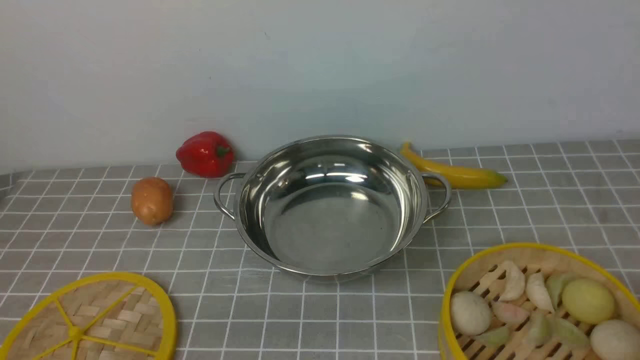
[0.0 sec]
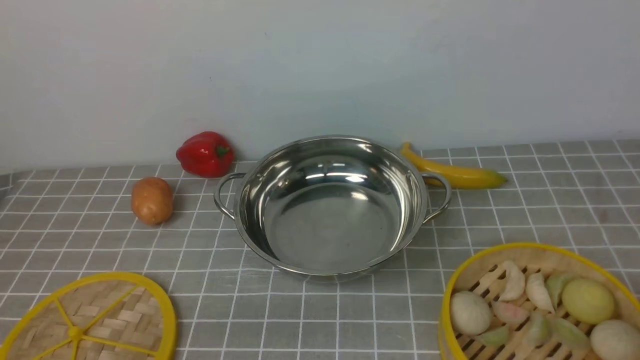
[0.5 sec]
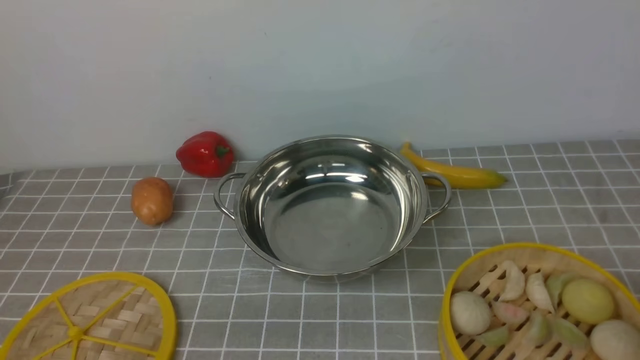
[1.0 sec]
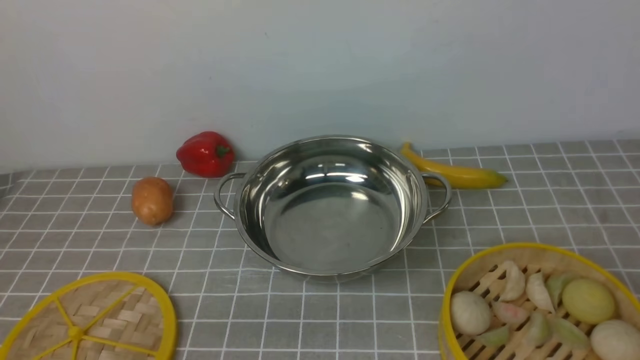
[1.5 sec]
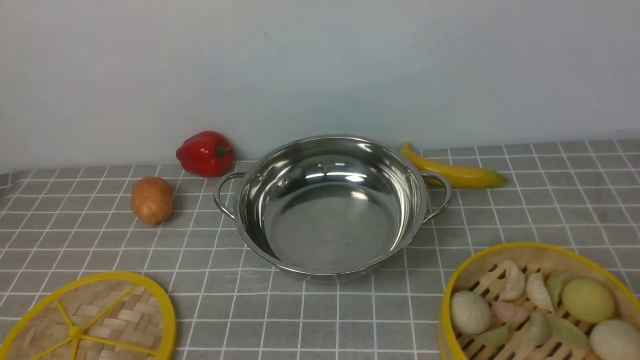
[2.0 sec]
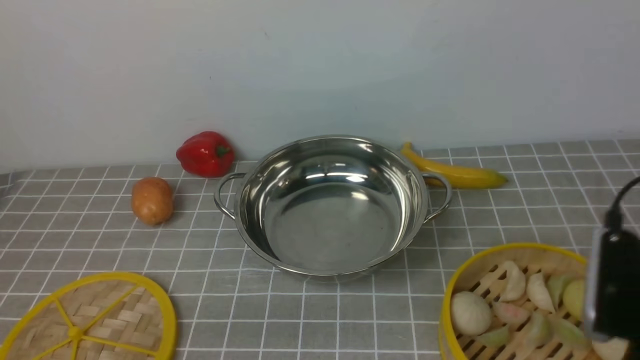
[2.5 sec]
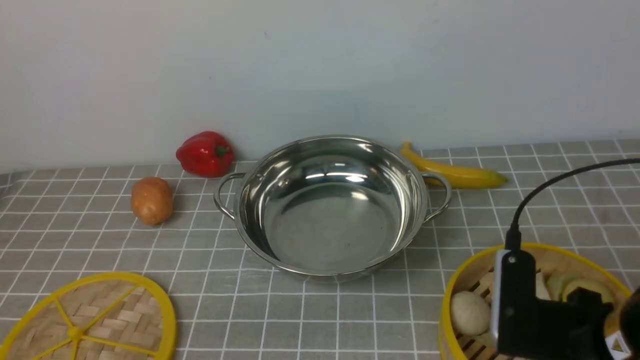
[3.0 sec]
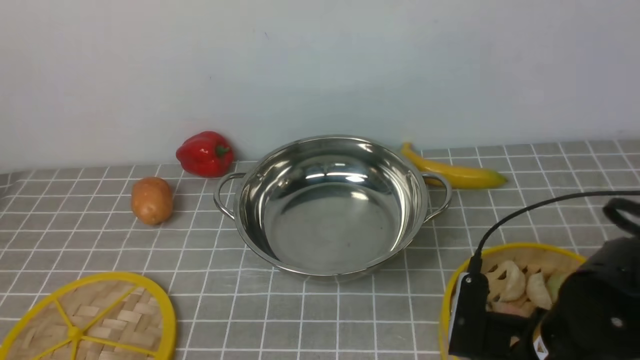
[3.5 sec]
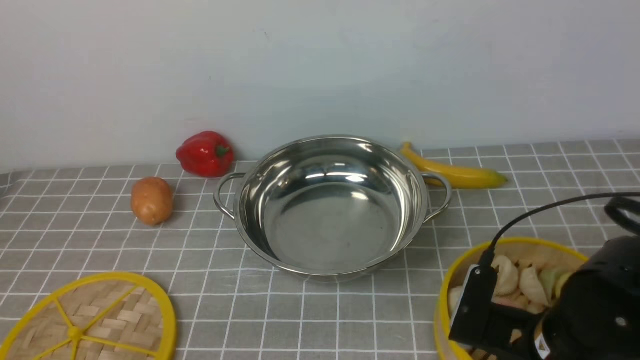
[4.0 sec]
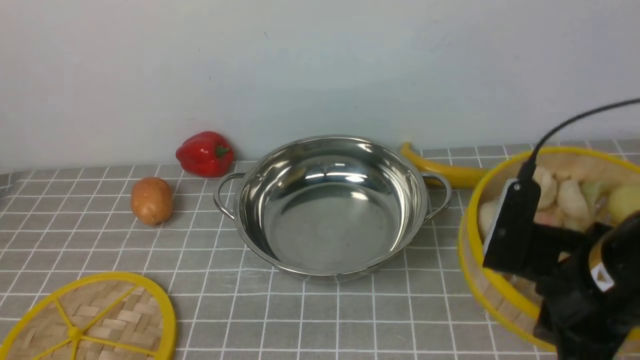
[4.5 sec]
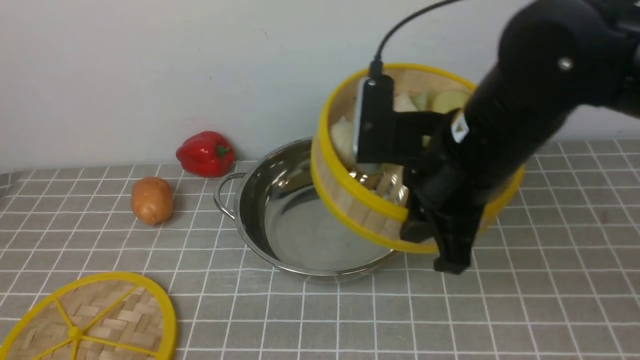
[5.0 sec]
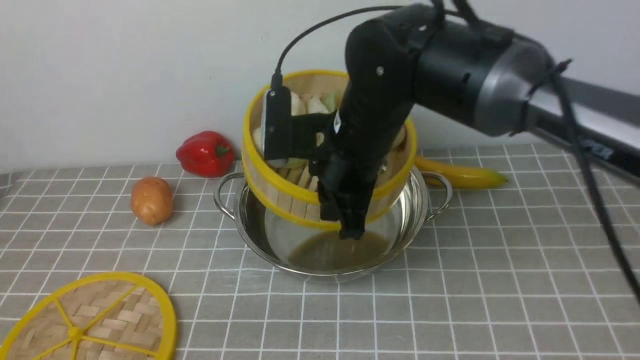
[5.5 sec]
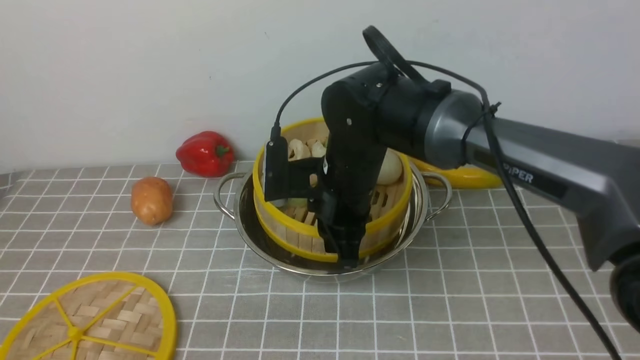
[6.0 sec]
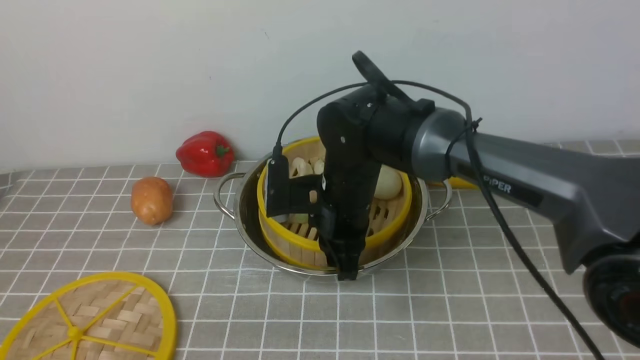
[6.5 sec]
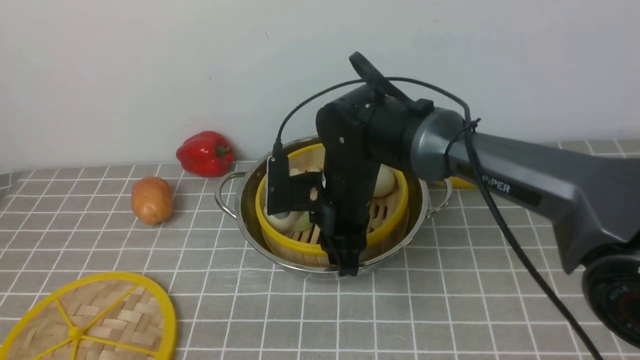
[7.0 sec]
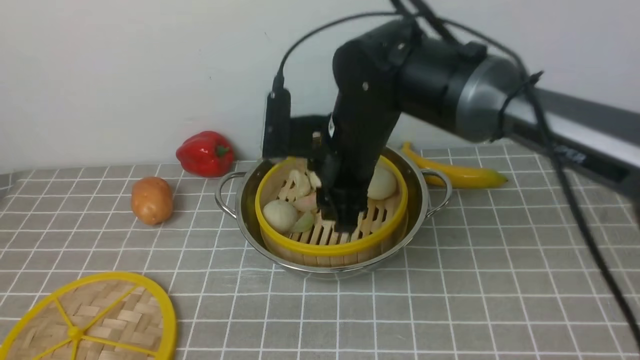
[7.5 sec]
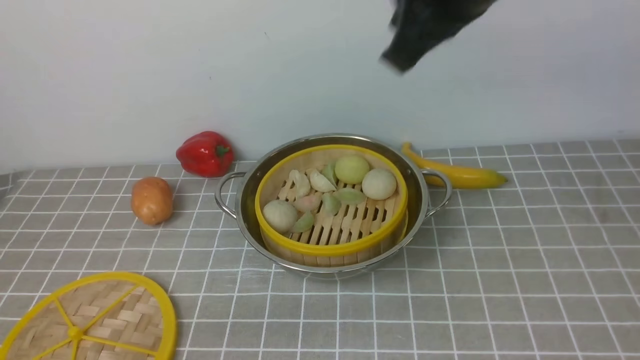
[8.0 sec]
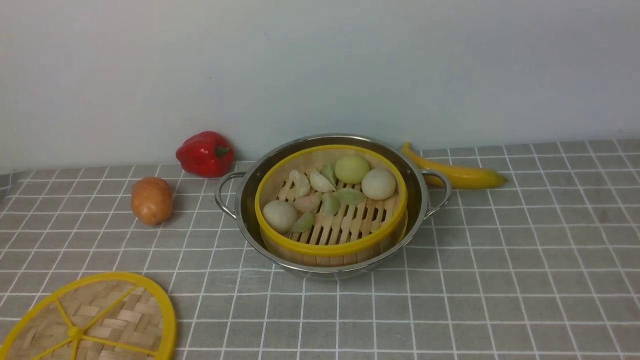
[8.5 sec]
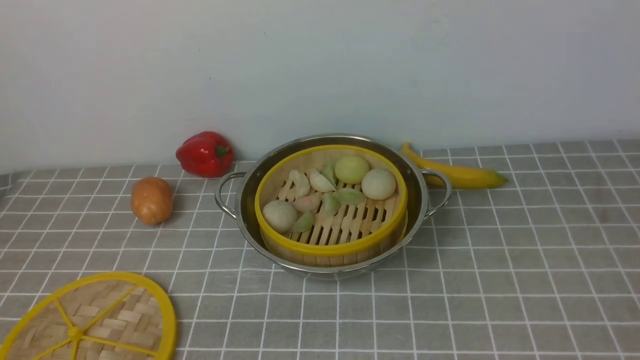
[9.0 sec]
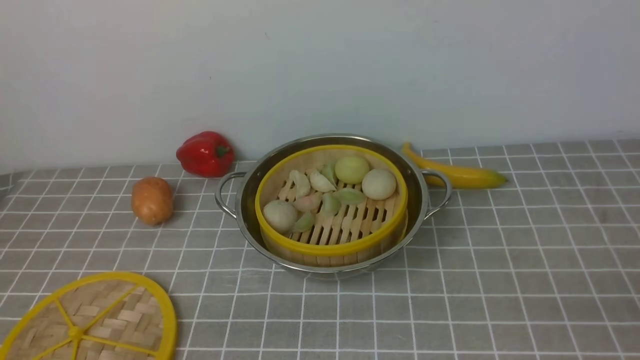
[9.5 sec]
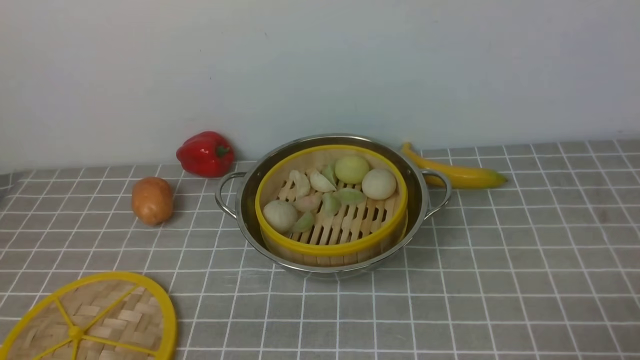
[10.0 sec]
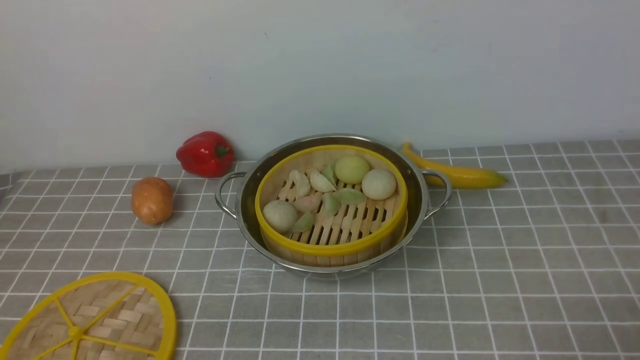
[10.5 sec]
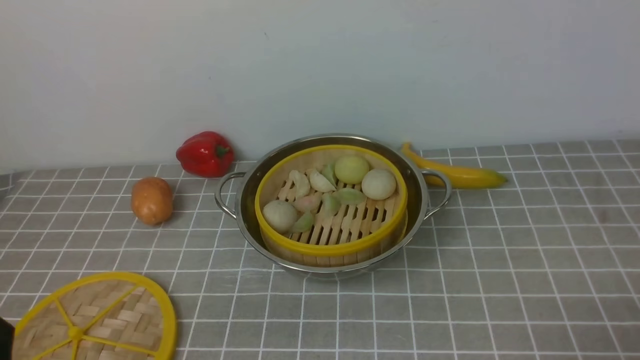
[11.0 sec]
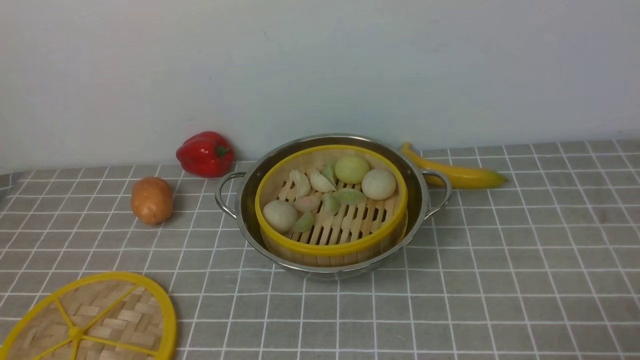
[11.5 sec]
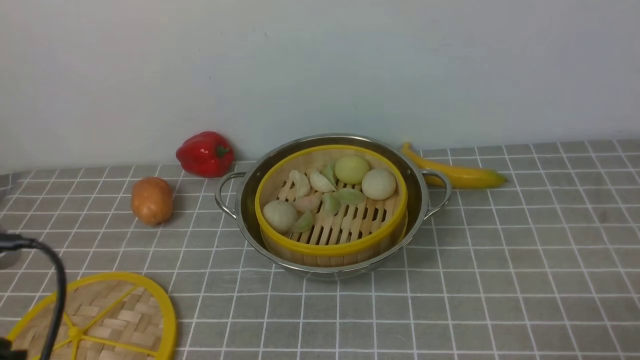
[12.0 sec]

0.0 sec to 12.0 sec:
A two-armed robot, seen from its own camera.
Task of the whole recording: place the steamer in the pot on the grey tablecloth, and put the lid on the steamer.
Step, 0.0 sec to 4.0 sec: use the right arm to lift the steamer closest to it.
Step, 4.5 sec to 7.0 sec: use the right arm to put the steamer into the iron steamer pot in the middle.
2.0 sec to 4.0 sec: The right gripper goes roughly 20 cm downward, forward and to the left, and closes.
4.0 sec to 6.0 sec: The right gripper shifts about 25 cm forward and to the left.
6.0 sec to 8.0 sec: The right gripper heads upward and to the right, covering roughly 25 cm, and opens, then closes once more.
8.0 sec to 10.0 sec: The right gripper moves downward, backward and to the right, approximately 40 cm, and opens its fingers.
10.0 sec to 12.0 sec: The left gripper shifts roughly 15 cm upward and forward.

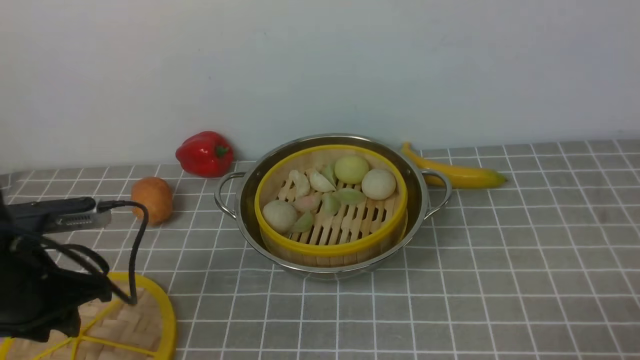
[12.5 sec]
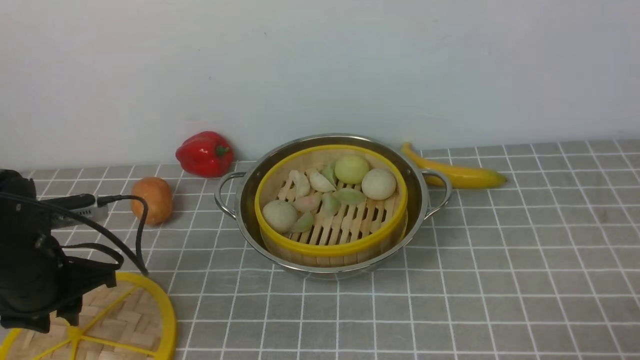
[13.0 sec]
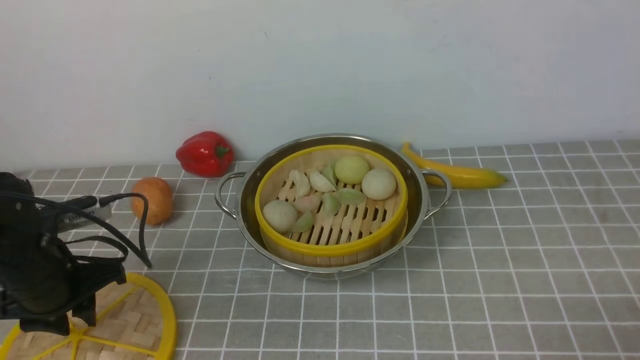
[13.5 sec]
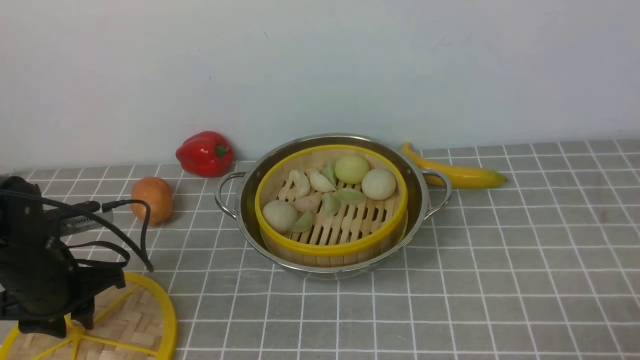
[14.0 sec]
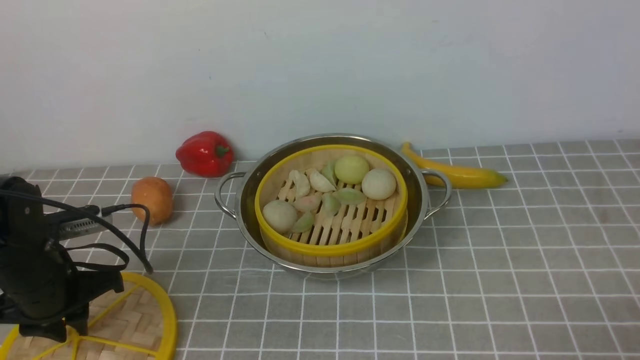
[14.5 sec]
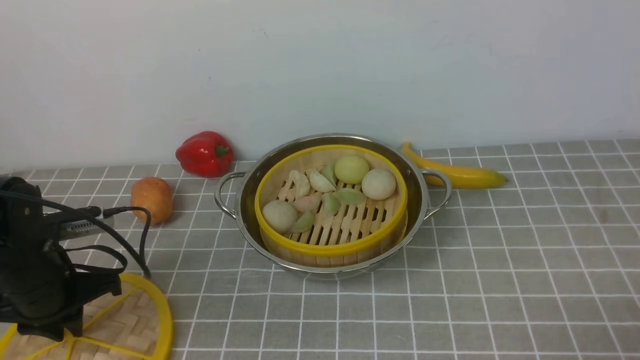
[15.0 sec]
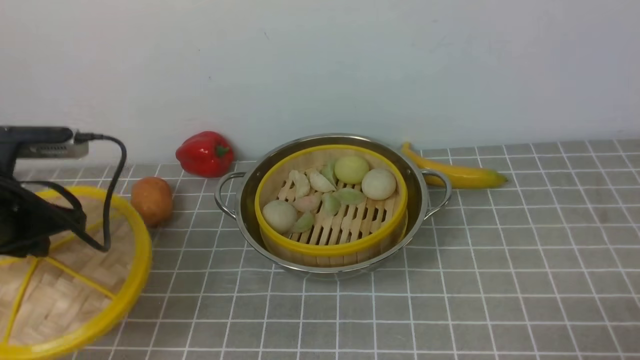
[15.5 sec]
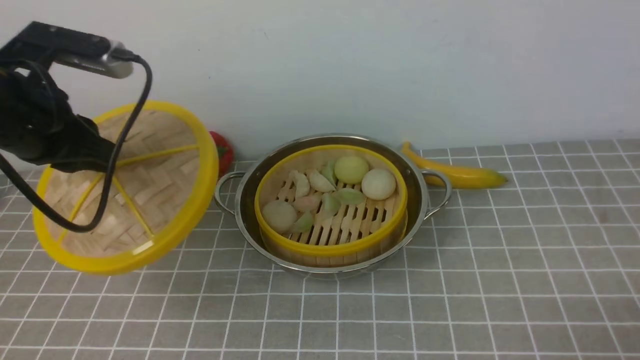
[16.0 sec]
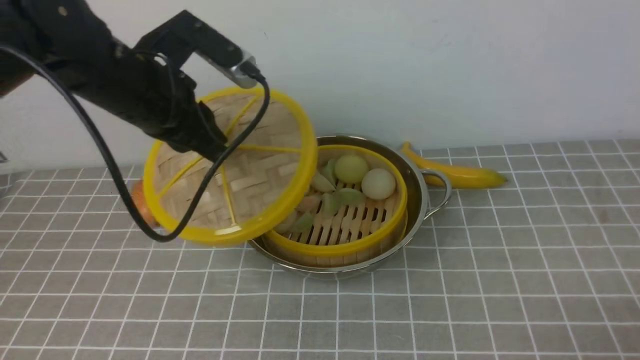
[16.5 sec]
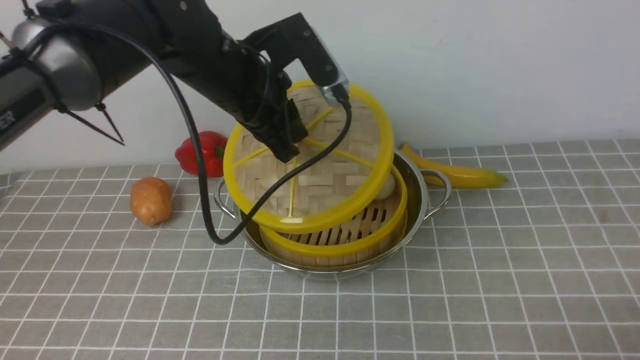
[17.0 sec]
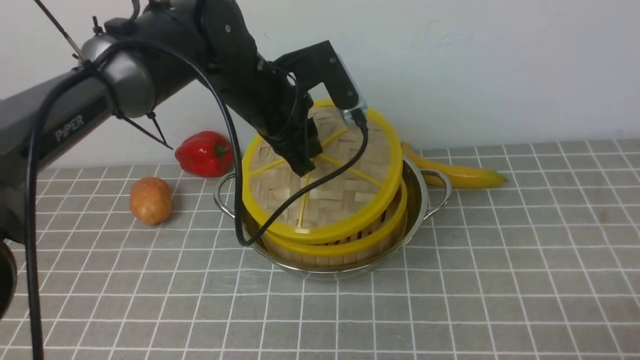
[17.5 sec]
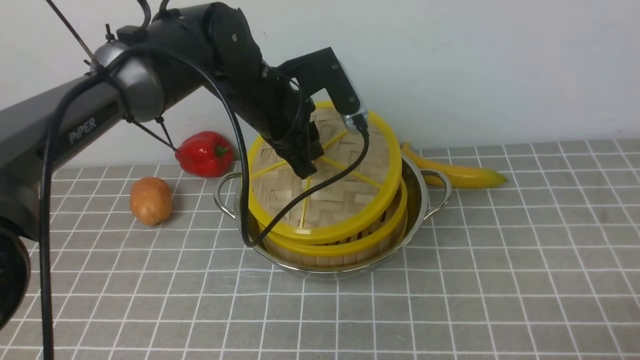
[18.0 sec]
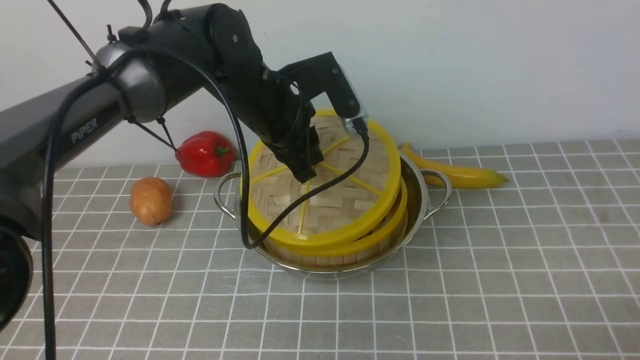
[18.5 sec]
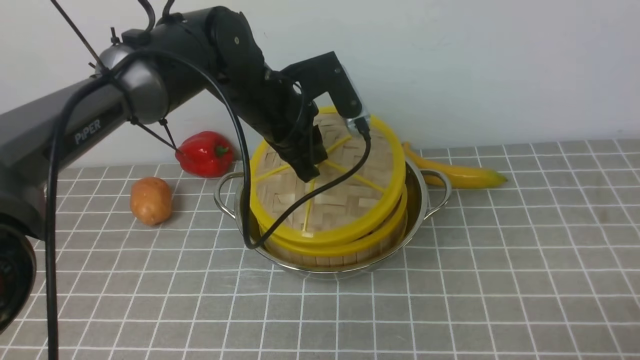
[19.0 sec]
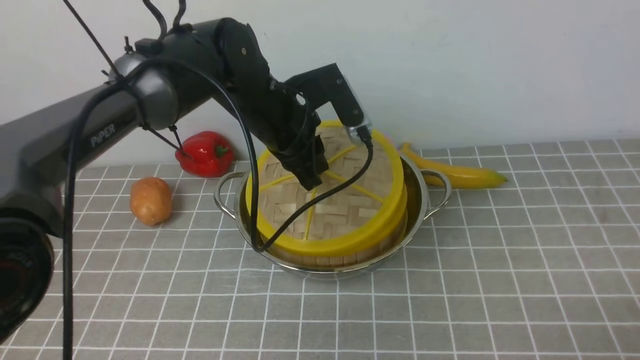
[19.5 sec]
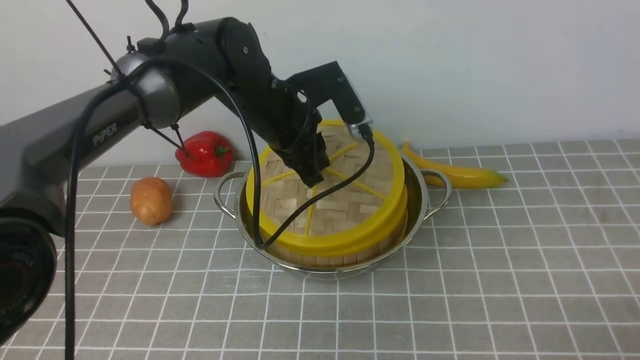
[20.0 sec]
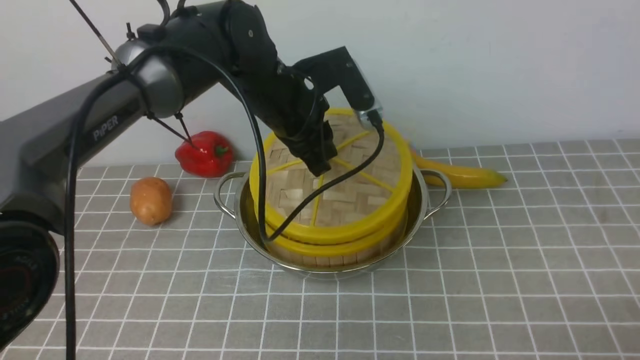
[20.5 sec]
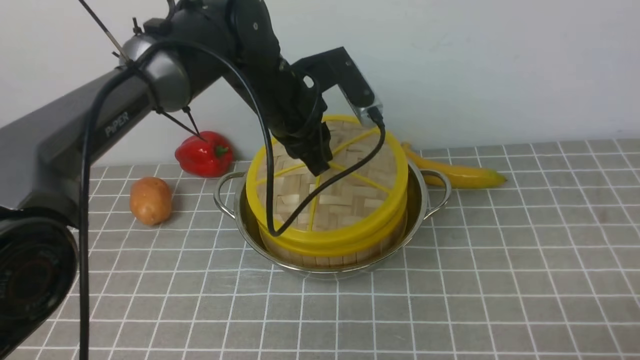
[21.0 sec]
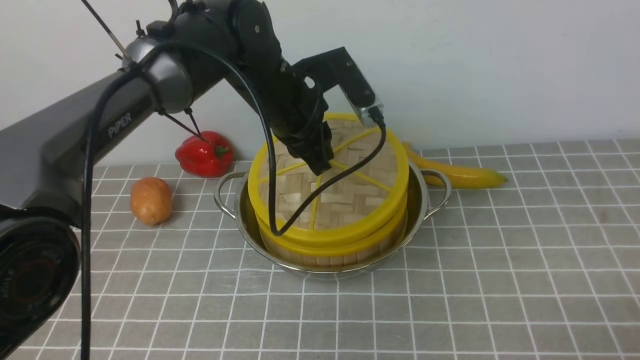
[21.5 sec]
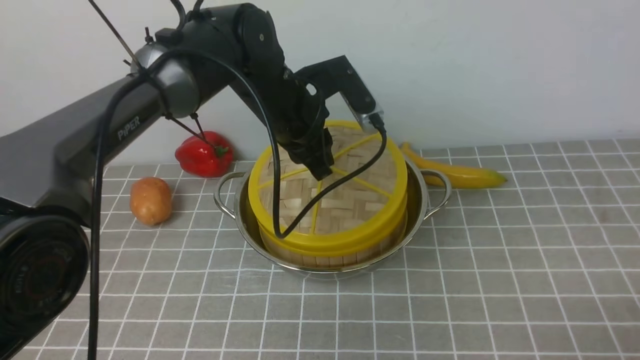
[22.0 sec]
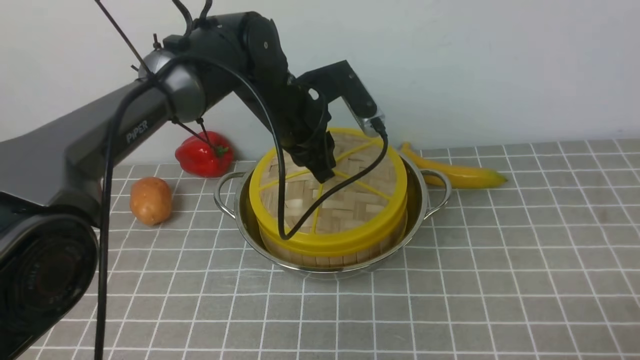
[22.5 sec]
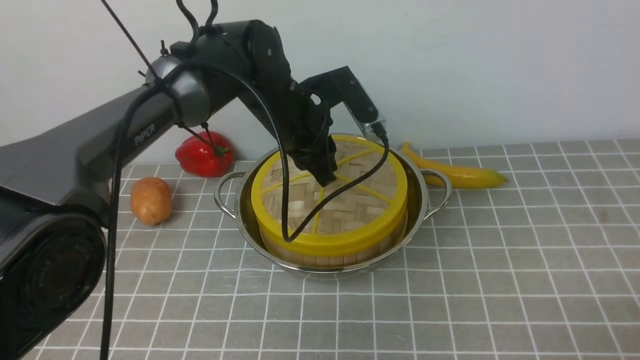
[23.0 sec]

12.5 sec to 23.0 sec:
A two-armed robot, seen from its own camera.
Task of the whole recording: place the steamer in the pot on the grey tablecloth, and put the lid on the steamer.
Step, 12.5 sec to 15.0 sec: use the left arm to lift the lid of the steamer.
12.5 sec to 14.5 sec: The left gripper heads downward, covering roughly 5 cm.
14.5 sec to 16.5 sec: The left gripper shifts approximately 20 cm upward, to the right and forward.
16.5 sec to 19.0 sec: The left gripper shifts some 10 cm to the right, forward and downward.
19.0 sec to 23.0 sec: The grippers make only small movements.
